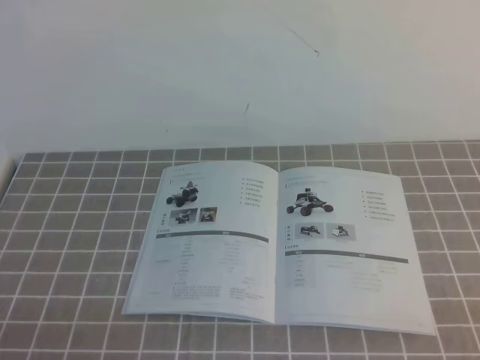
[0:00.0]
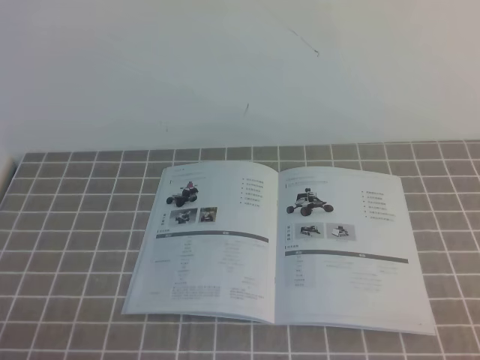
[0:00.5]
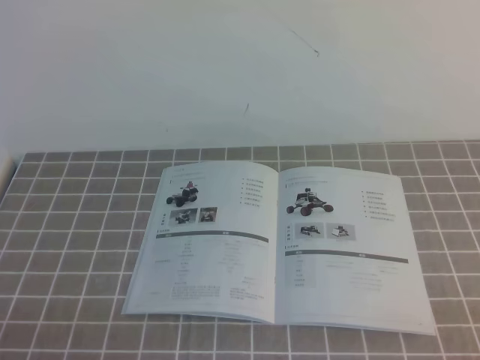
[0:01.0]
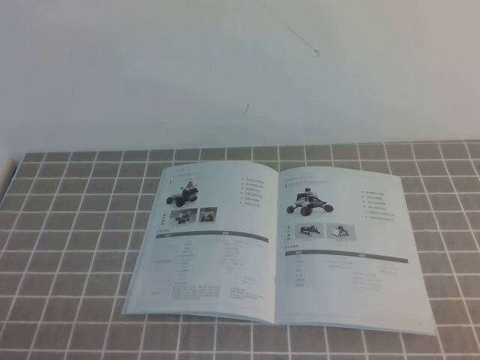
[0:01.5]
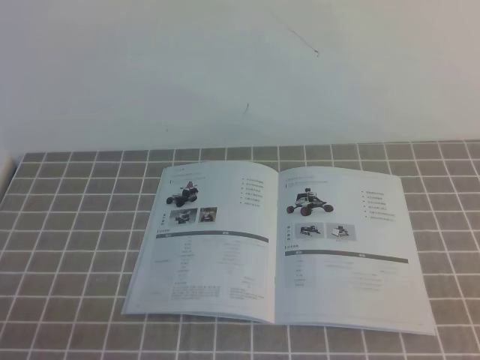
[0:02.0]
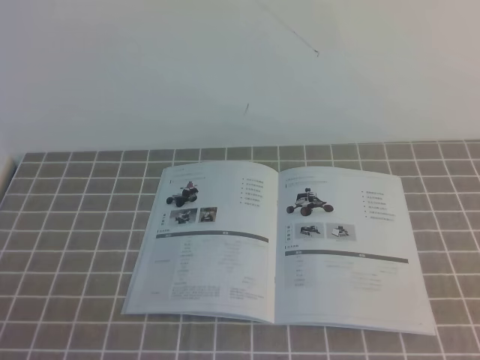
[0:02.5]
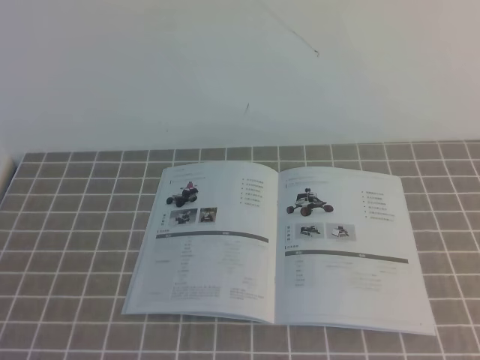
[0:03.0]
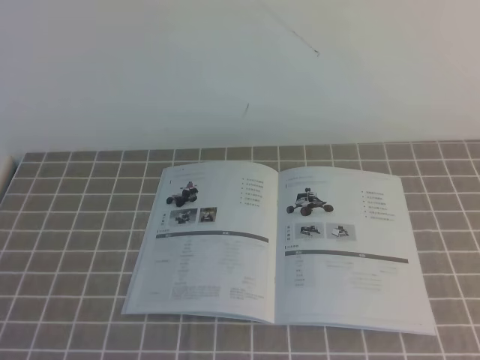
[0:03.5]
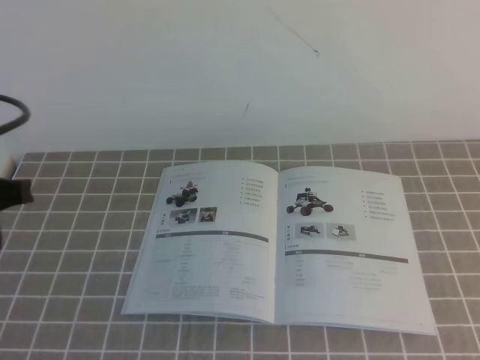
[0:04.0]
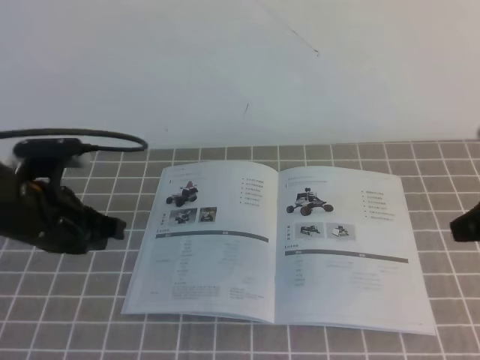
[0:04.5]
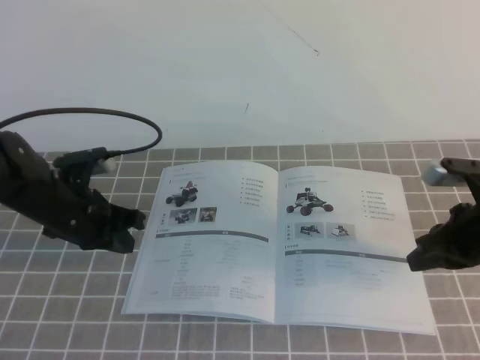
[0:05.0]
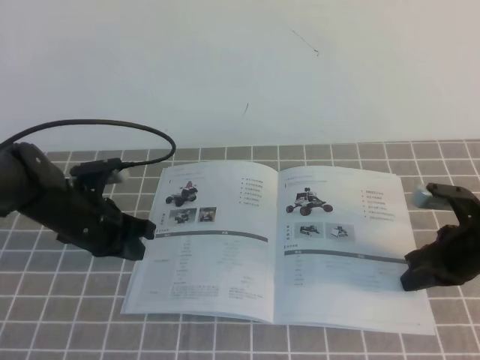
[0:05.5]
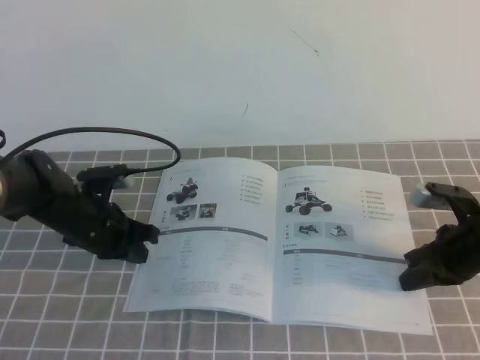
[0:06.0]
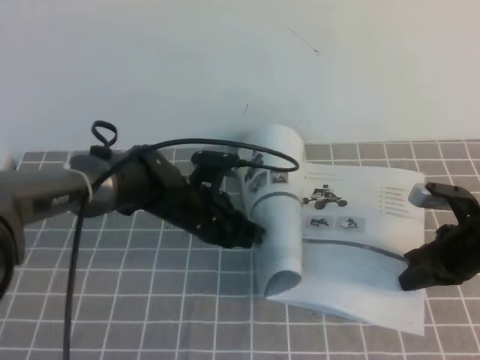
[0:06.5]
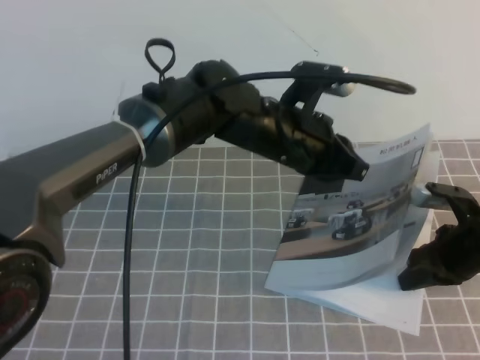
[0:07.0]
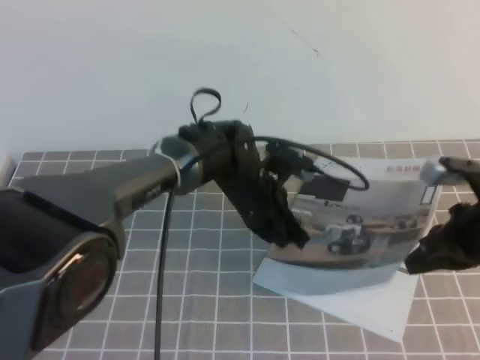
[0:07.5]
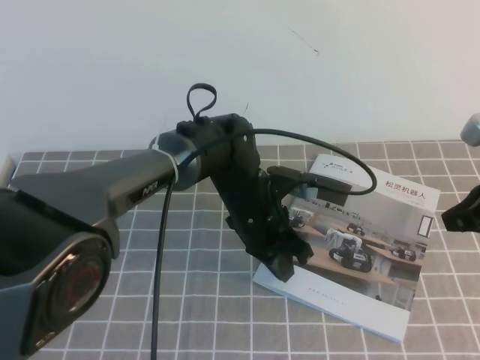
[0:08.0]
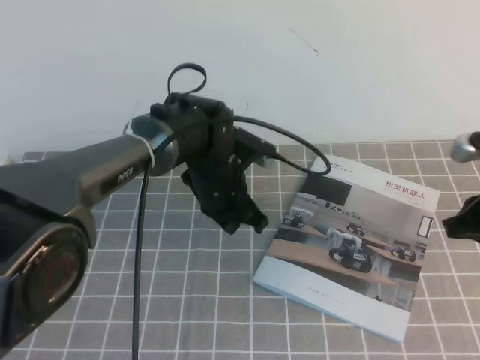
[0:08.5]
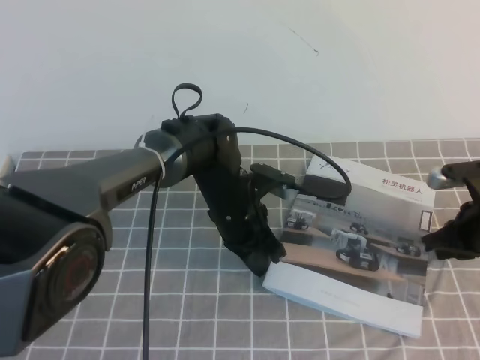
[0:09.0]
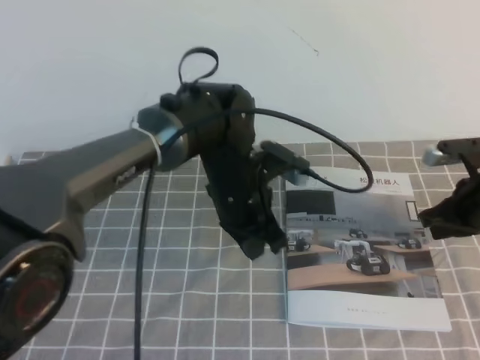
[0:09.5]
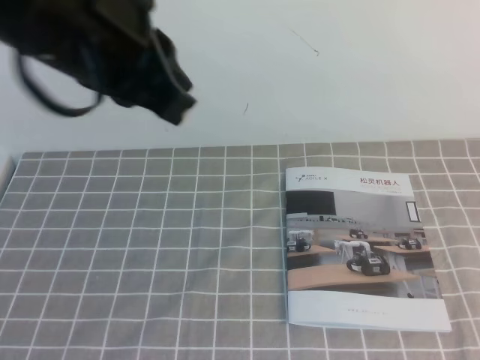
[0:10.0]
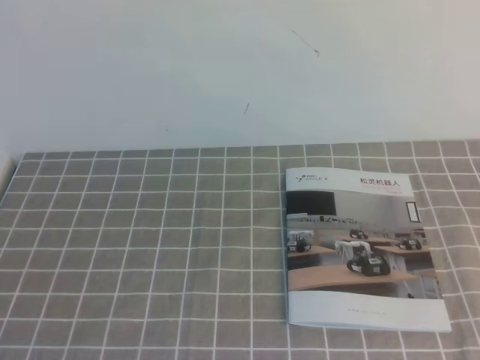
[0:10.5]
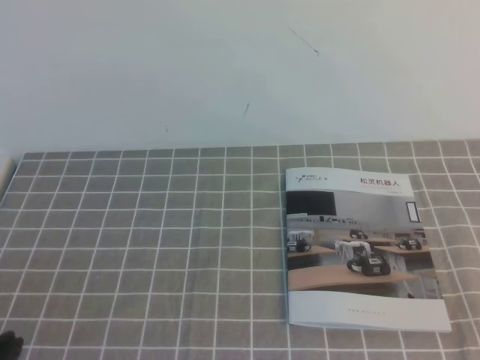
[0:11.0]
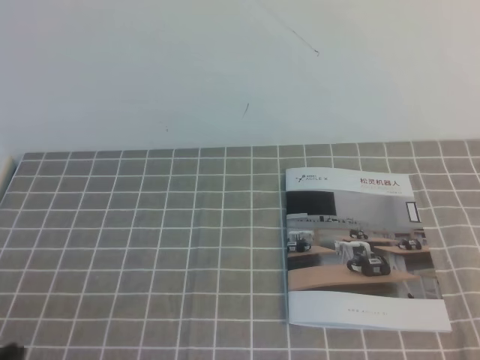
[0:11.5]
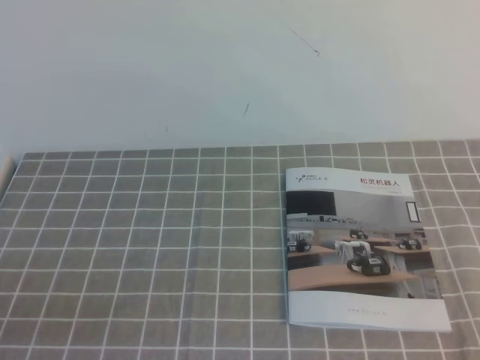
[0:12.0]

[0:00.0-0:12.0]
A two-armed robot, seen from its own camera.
Task of the whole recording: on the grey tablecloth, hold the book with one hand and close it with the other.
0:02.0 to 0:04.0: The left gripper heads forward and upward, covering some 20 cm.
0:04.0 to 0:06.0: The grippers both shift downward and forward by about 30 cm.
0:06.0 to 0:08.0: The left gripper shifts about 20 cm to the right. The right gripper travels upward by roughly 15 cm.
0:08.0 to 0:10.0: The left gripper moves upward, backward and to the left, some 35 cm. The right gripper travels upward by about 10 cm.
0:10.0 to 0:12.0: The right gripper travels backward and downward by some 25 cm. The left gripper travels downward, backward and to the left by some 30 cm.

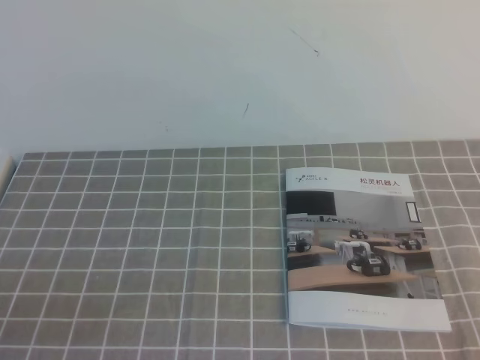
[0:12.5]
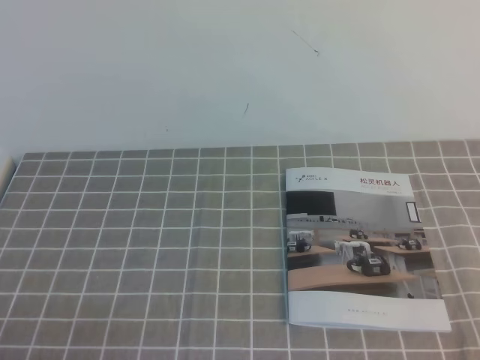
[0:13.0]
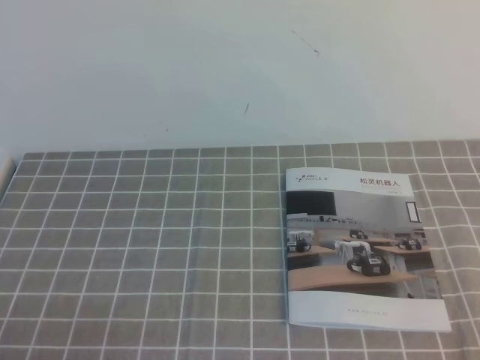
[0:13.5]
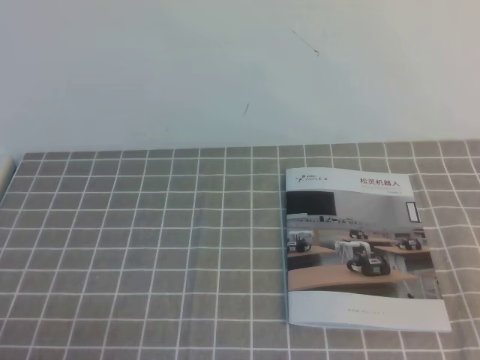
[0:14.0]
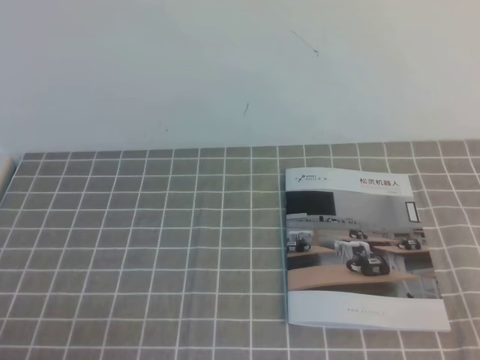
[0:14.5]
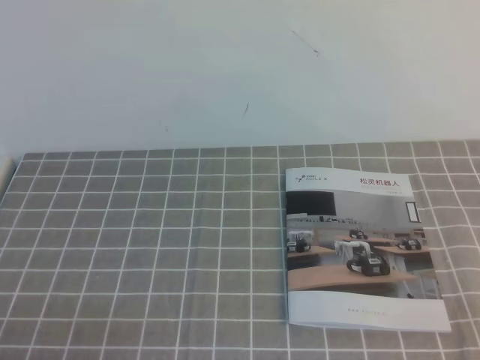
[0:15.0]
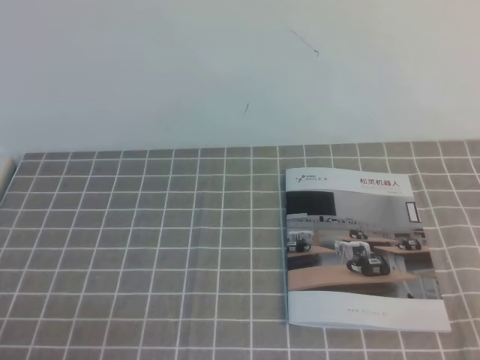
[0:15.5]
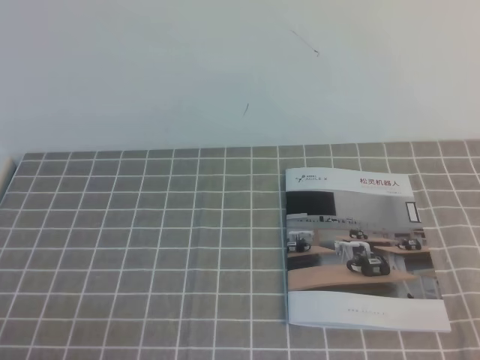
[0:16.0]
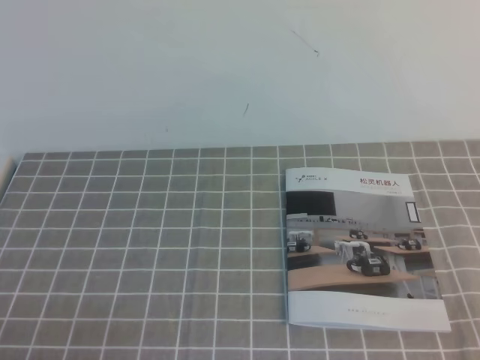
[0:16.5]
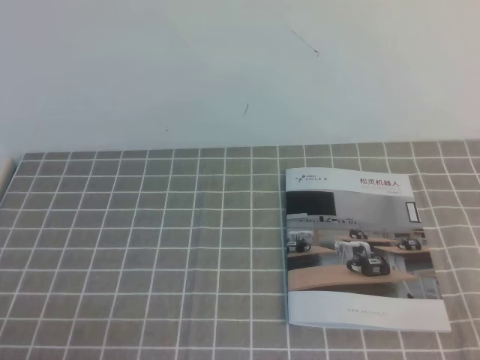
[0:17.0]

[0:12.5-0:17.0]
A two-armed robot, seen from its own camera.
Task of the whole recording: on the grey tablecloth, hold the book with one hand and close it with the other.
0:14.5 to 0:17.0: The two grippers keep their place.
